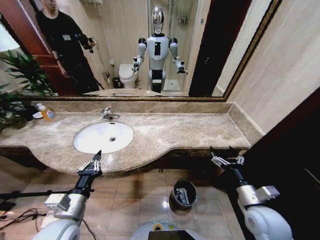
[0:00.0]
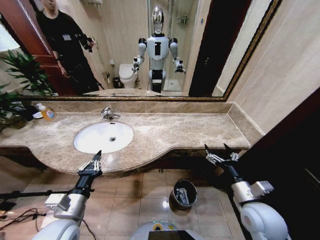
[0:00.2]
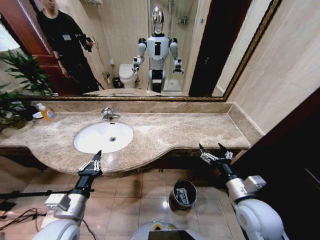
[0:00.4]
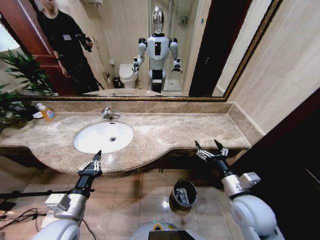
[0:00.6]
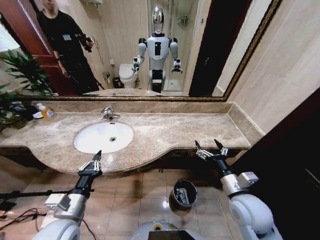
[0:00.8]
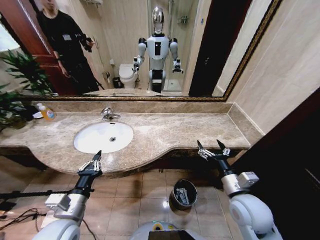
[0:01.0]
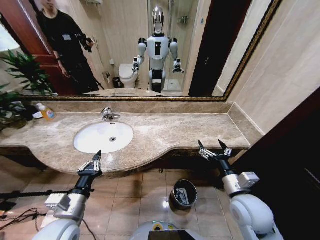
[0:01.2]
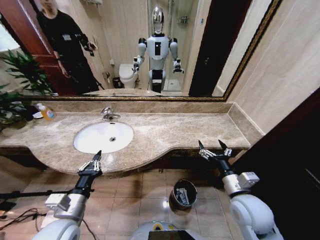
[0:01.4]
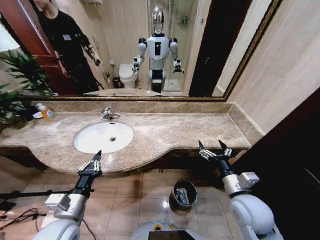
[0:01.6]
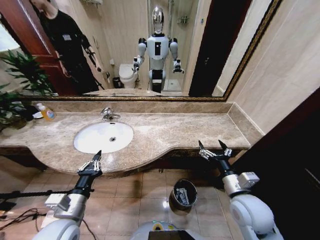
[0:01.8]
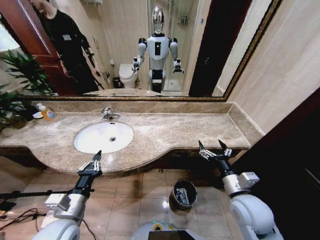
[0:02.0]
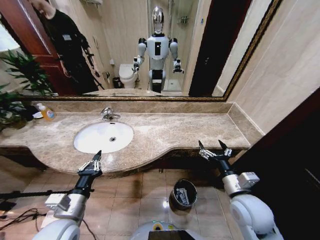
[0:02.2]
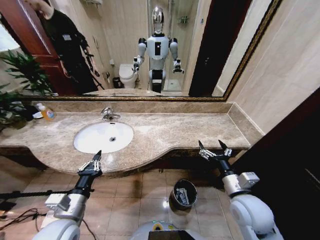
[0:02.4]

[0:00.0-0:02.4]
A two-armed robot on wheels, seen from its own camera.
Task of the whole recording: Pick up the trash from the sink and place it in the trash bin.
0:00.0 to 0:01.2: The right gripper travels to the left by some 5 cm.
0:01.2 to 0:02.4: Neither gripper changes place.

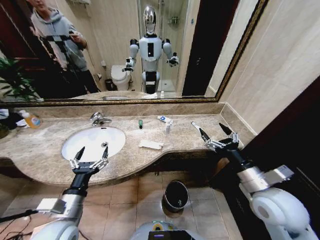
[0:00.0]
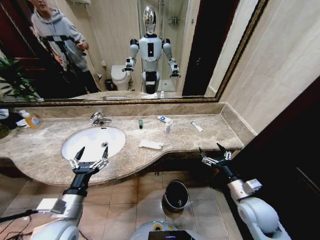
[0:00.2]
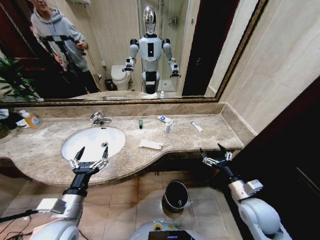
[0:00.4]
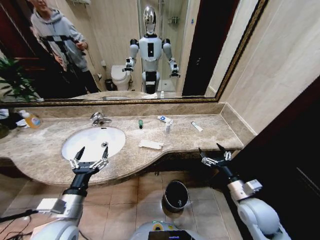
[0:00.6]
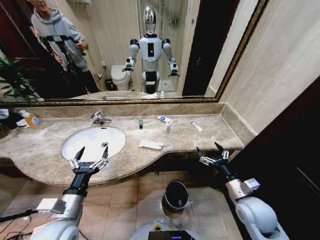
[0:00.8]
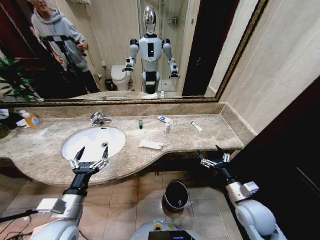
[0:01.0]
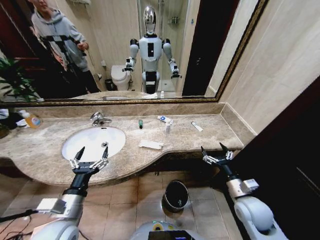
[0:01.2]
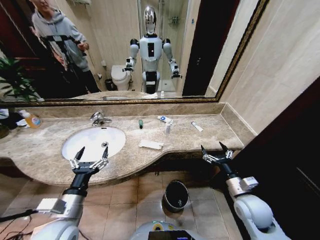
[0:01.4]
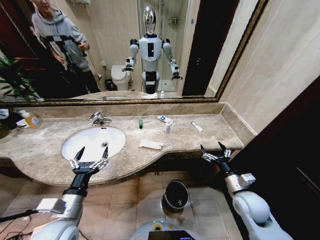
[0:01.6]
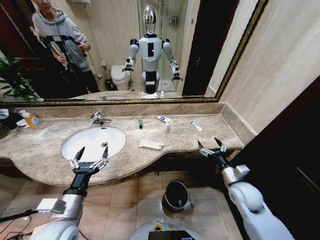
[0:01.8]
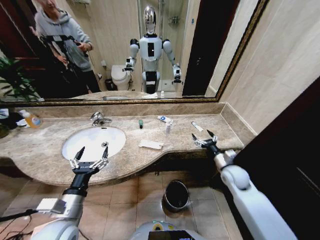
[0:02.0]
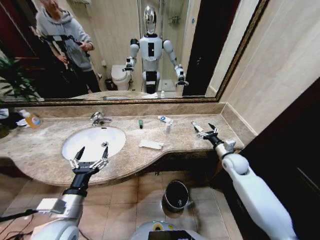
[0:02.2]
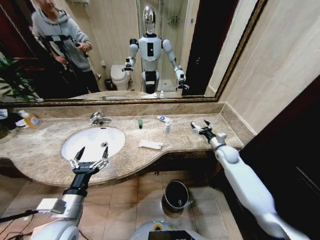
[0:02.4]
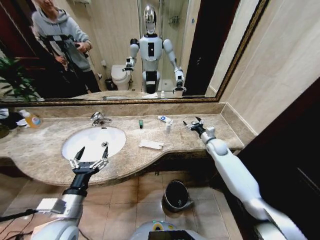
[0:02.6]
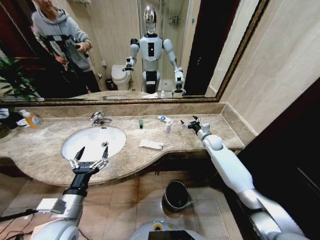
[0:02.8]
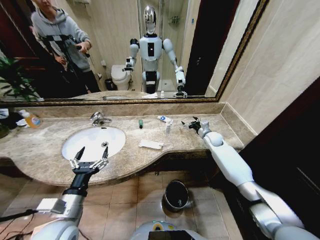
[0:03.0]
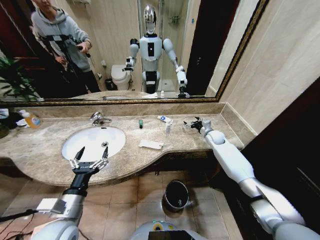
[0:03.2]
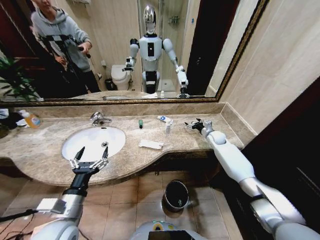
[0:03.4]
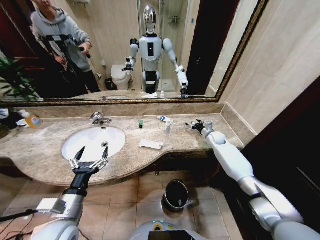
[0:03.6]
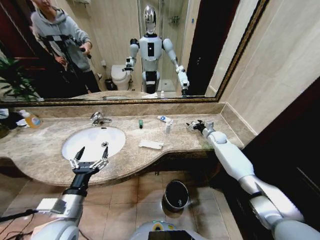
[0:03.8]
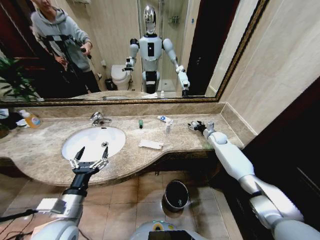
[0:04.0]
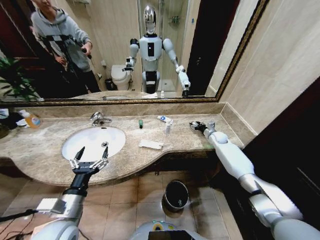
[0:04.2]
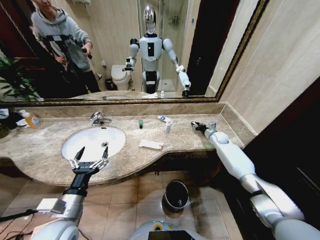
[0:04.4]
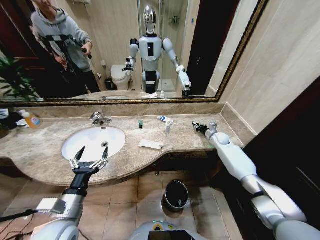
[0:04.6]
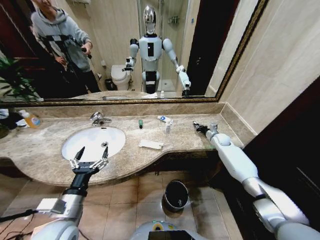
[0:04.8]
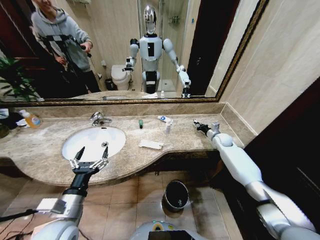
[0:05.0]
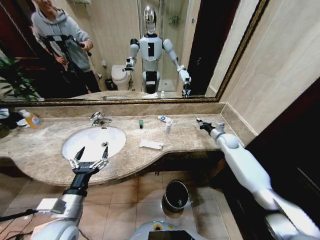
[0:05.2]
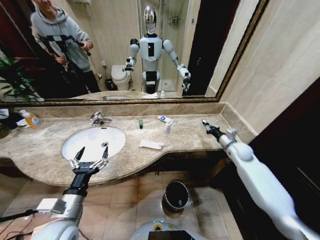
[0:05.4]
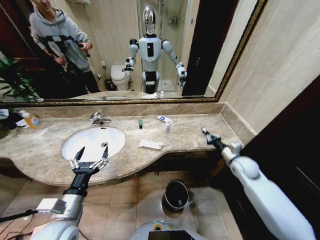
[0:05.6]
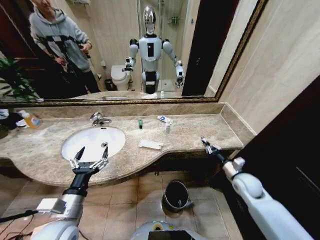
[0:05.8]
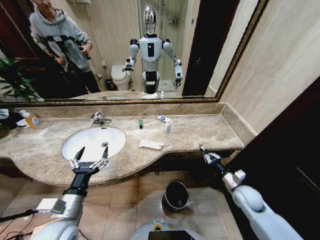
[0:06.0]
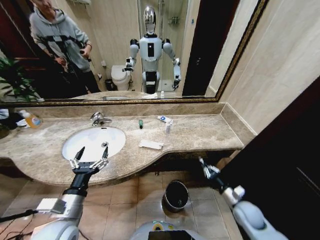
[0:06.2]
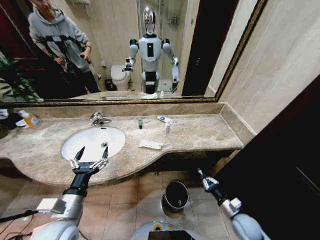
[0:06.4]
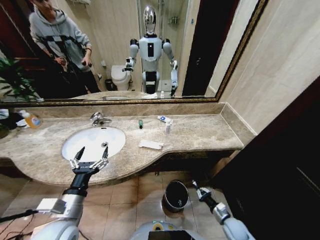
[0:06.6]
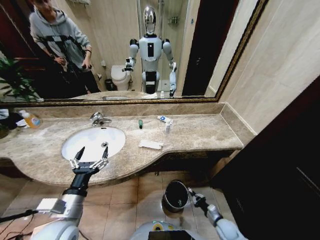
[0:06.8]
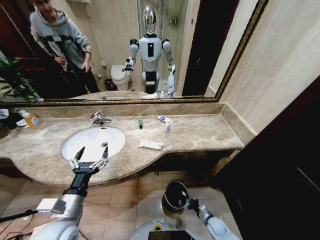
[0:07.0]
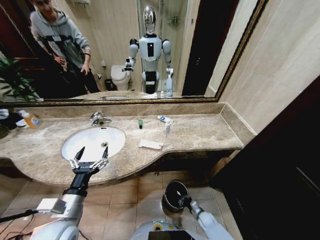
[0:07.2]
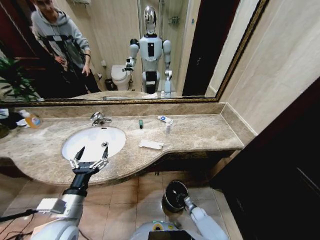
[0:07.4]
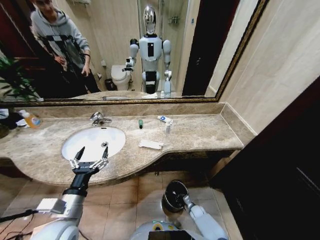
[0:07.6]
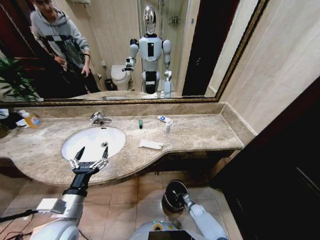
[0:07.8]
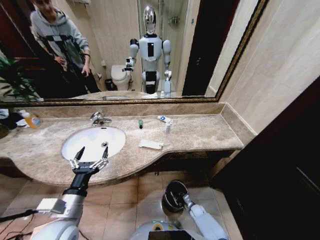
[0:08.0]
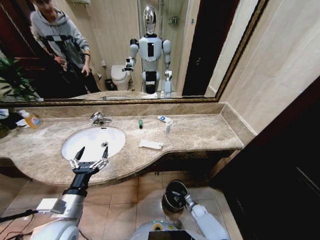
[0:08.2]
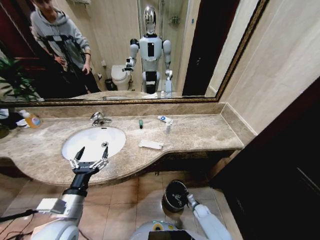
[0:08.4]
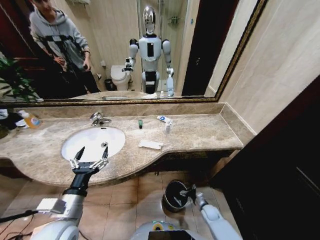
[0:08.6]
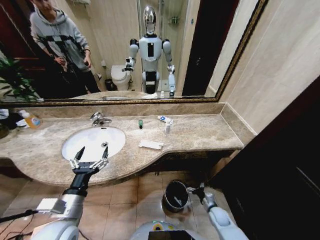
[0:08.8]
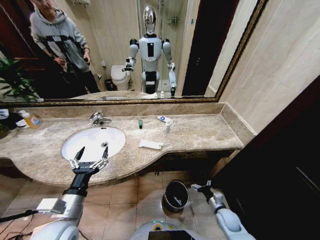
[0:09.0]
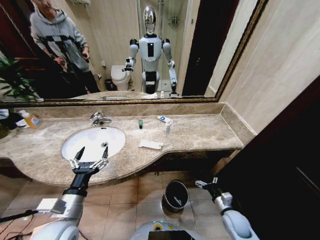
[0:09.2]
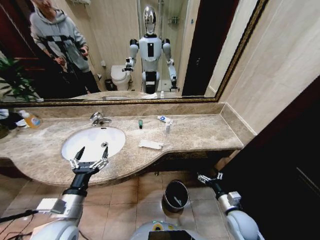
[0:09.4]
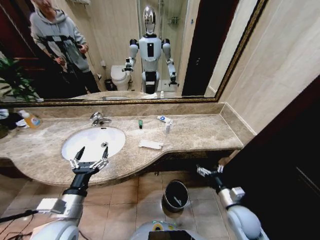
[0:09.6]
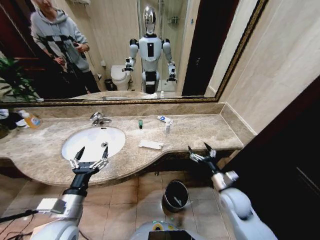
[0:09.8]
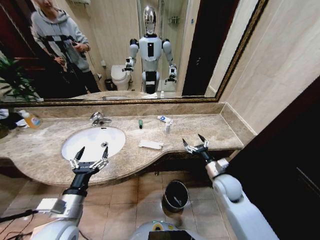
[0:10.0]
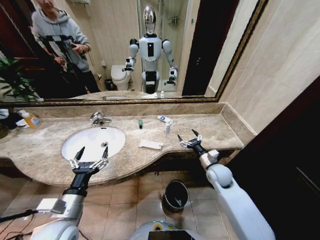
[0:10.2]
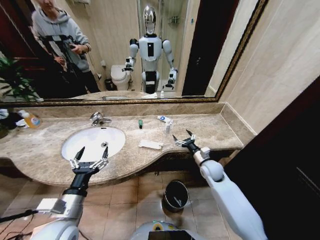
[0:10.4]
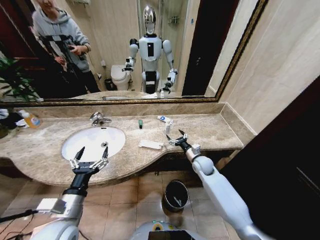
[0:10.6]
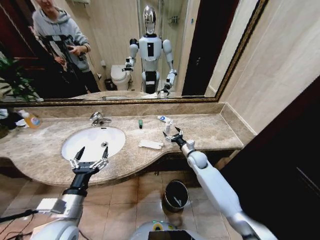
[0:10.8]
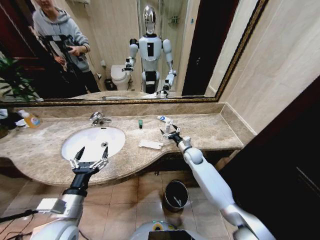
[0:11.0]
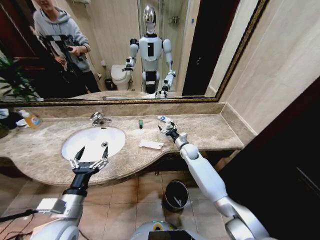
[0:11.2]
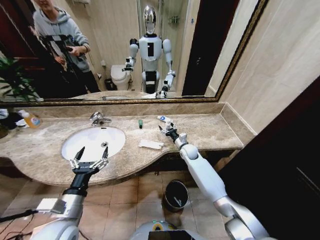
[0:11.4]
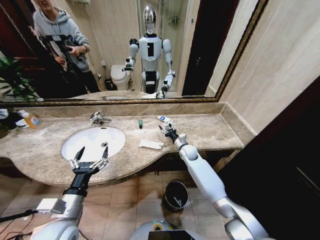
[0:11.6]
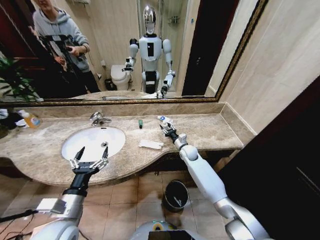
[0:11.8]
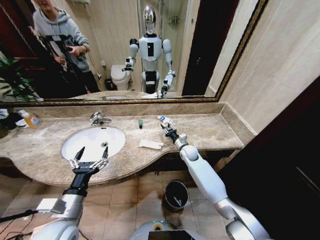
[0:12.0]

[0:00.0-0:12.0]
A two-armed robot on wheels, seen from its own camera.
Task of the whole recording: Pick up the trash from the sink and place it in the trash bin.
0:01.6 to 0:03.0: The right gripper heads forward, covering some 30 cm.
0:03.0 to 0:04.4: The right gripper moves to the right, some 5 cm, and closes up.
0:04.4 to 0:06.0: The right gripper goes approximately 30 cm backward, and closes up.
0:06.0 to 0:07.6: The right gripper heads downward, covering about 35 cm.
0:07.6 to 0:09.0: The right gripper heads upward and to the right, covering approximately 20 cm, and opens.
0:09.0 to 0:10.4: The right gripper travels upward and forward by some 25 cm.
0:10.4 to 0:12.0: The right gripper is displaced forward and to the left by approximately 15 cm, and closes.

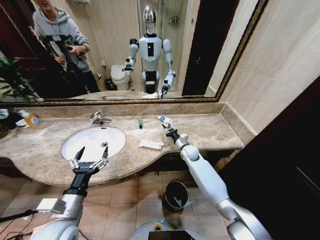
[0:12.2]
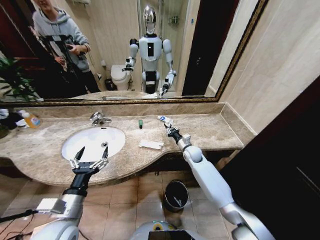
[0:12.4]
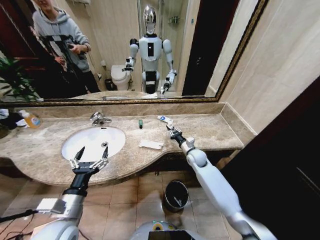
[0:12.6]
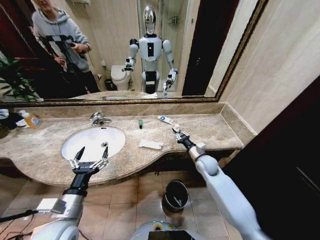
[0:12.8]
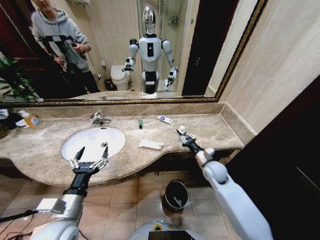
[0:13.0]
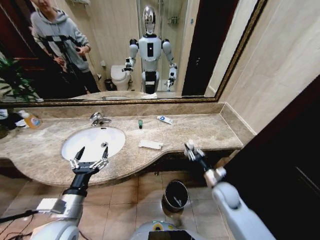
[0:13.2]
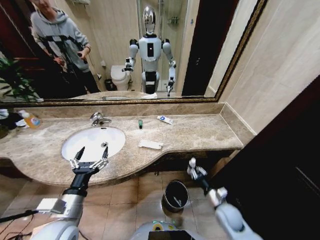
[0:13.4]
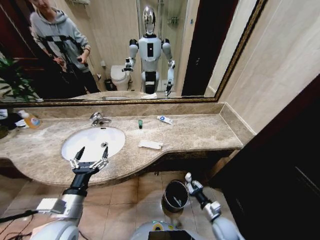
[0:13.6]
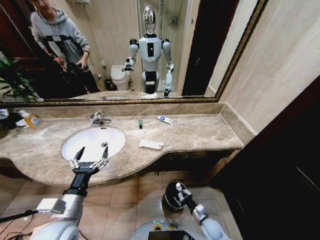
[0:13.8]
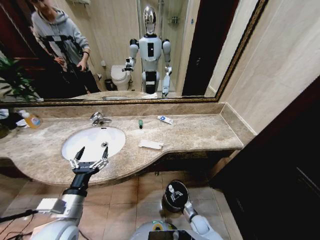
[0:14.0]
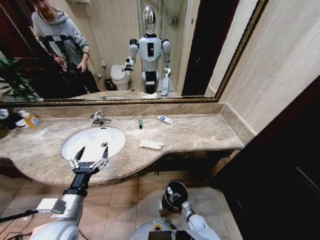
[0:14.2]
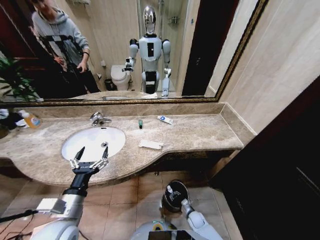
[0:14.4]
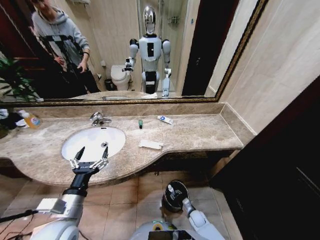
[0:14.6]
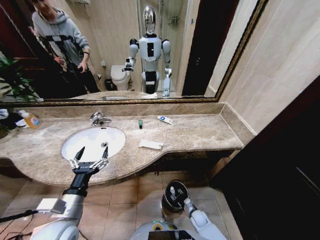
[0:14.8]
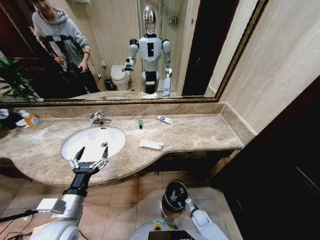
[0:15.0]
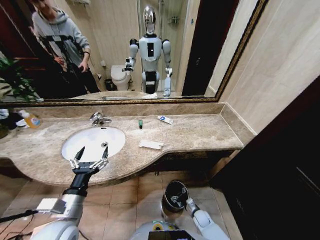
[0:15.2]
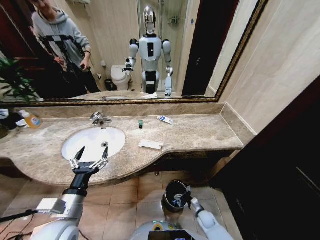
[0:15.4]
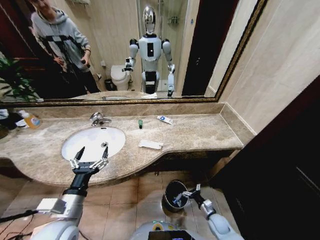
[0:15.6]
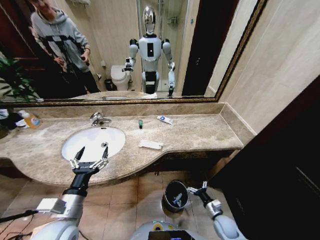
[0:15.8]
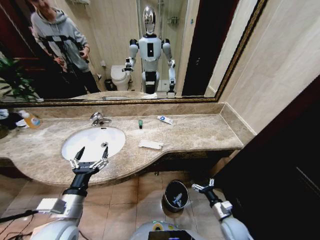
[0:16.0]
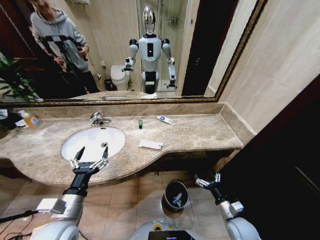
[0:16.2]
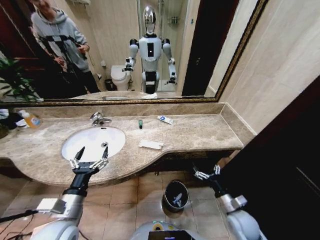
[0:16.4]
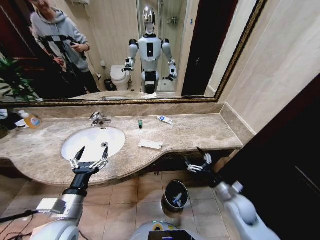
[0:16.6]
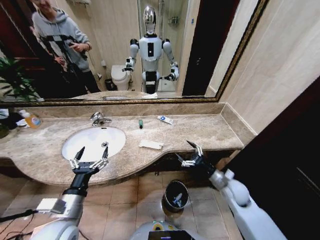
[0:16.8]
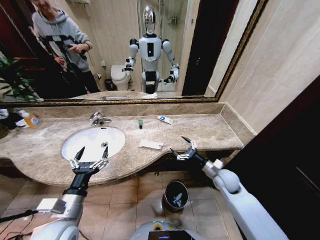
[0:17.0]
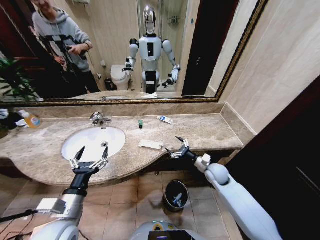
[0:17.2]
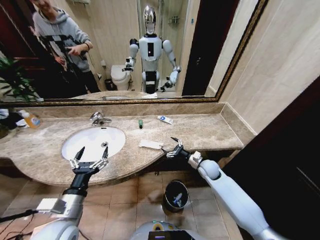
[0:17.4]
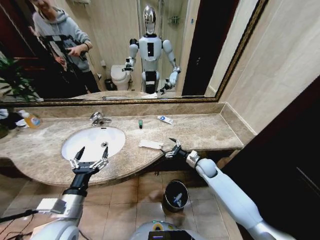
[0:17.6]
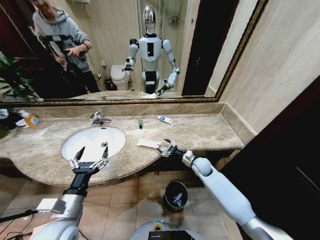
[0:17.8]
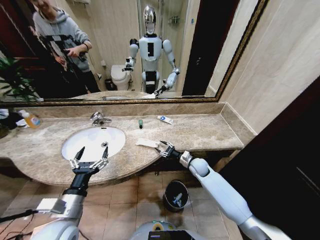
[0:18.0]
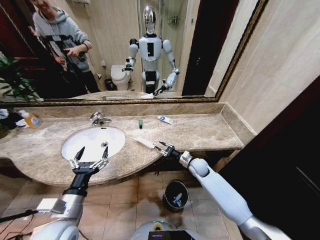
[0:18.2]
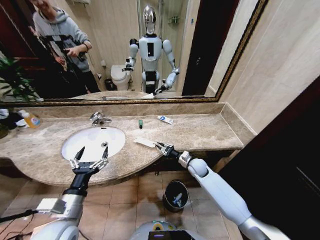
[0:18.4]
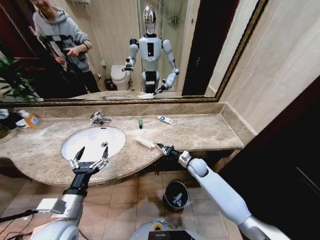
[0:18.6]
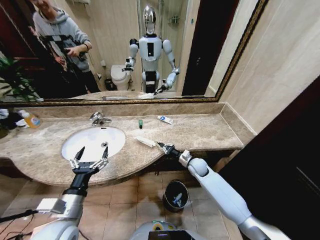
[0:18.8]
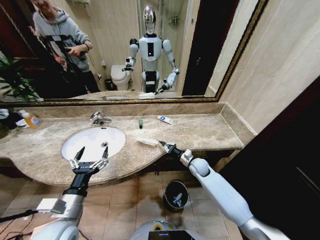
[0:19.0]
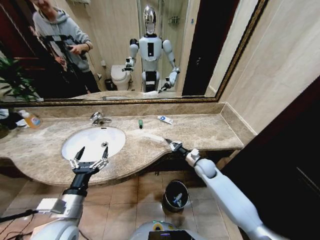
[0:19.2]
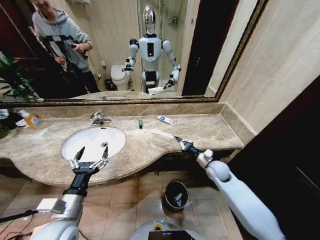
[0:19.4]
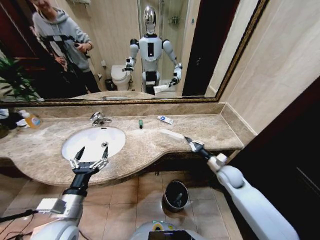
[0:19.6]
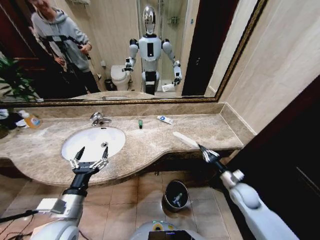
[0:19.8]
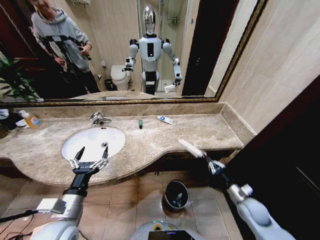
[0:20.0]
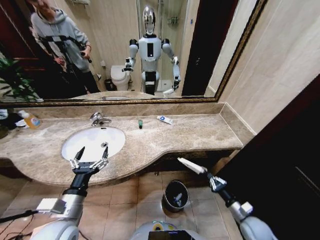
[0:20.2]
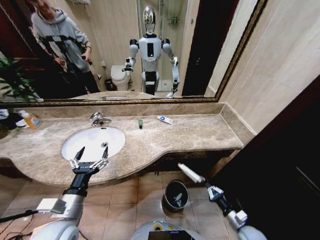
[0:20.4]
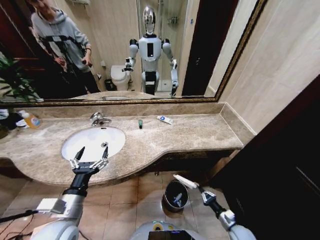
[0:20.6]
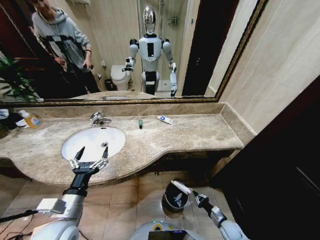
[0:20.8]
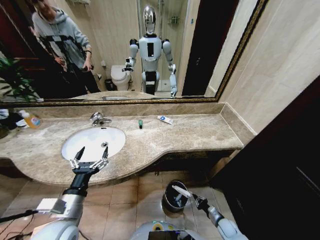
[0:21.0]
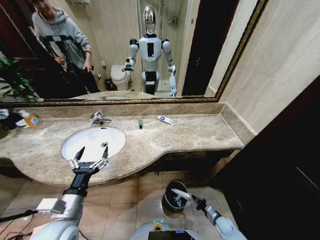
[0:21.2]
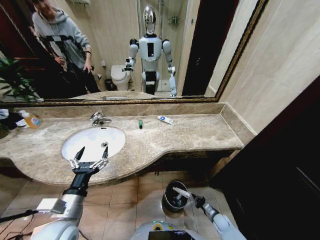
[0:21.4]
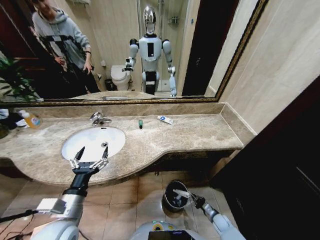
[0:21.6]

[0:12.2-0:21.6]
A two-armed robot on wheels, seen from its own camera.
Task of the whole recording: Pick up the trash from the sink and place it in the trash bin.
0:12.2 to 0:13.8: The right gripper shifts roughly 40 cm backward and downward.
0:13.8 to 0:15.4: The right gripper opens its fingers.
0:15.4 to 0:17.0: The right gripper travels upward by about 30 cm.
0:17.0 to 0:18.4: The right gripper moves to the left and forward, approximately 10 cm, and closes its fingers.
0:18.4 to 0:20.0: The right gripper travels backward and to the right by about 25 cm.
0:20.0 to 0:21.6: The right gripper moves downward, approximately 25 cm.
